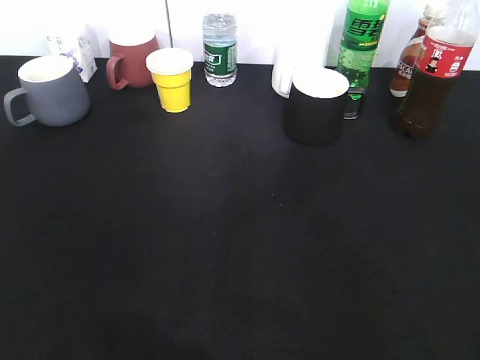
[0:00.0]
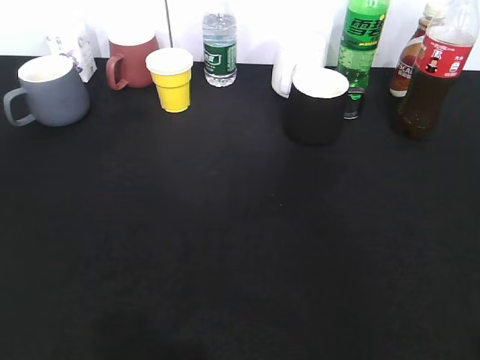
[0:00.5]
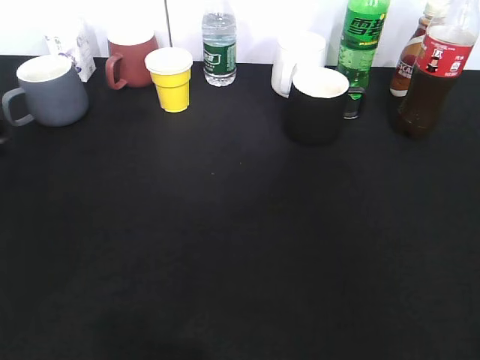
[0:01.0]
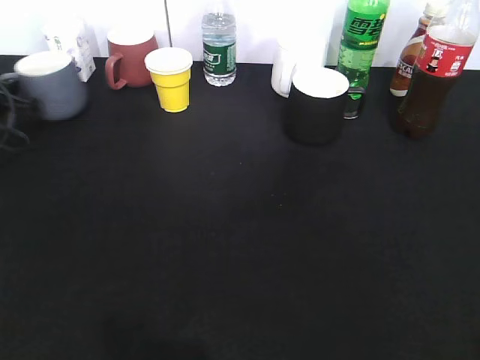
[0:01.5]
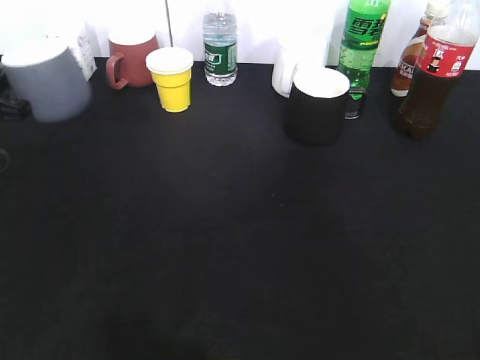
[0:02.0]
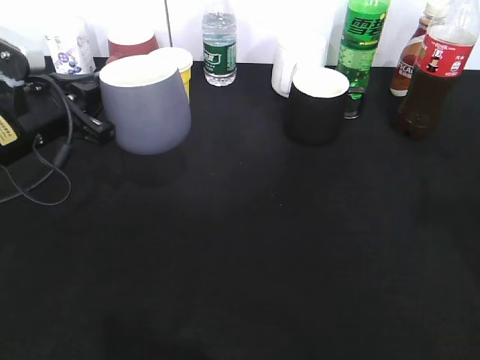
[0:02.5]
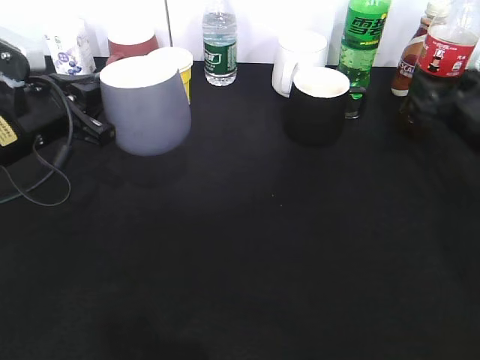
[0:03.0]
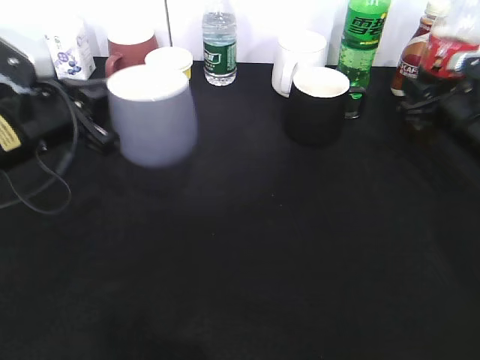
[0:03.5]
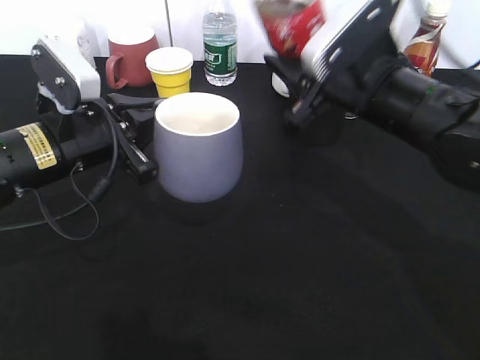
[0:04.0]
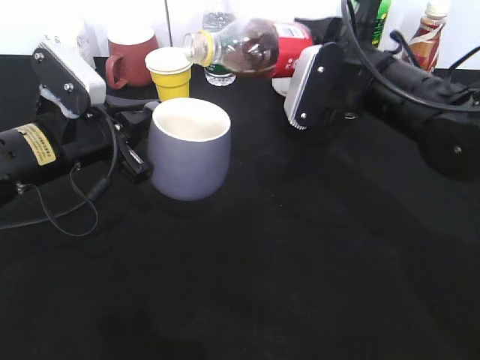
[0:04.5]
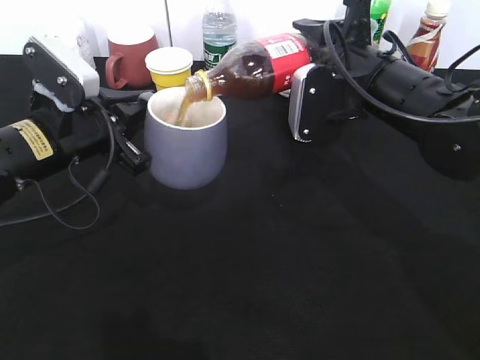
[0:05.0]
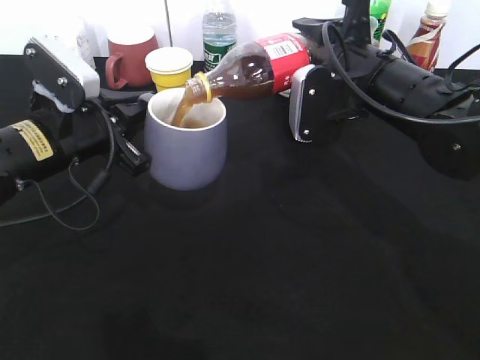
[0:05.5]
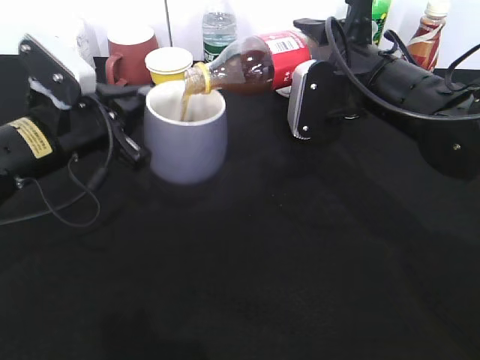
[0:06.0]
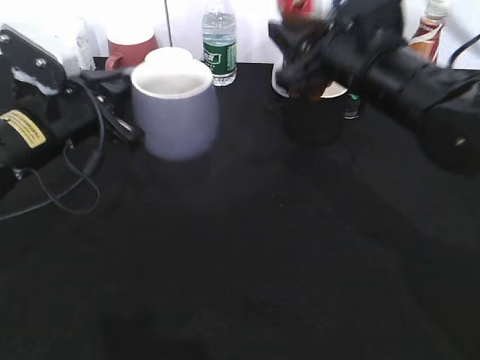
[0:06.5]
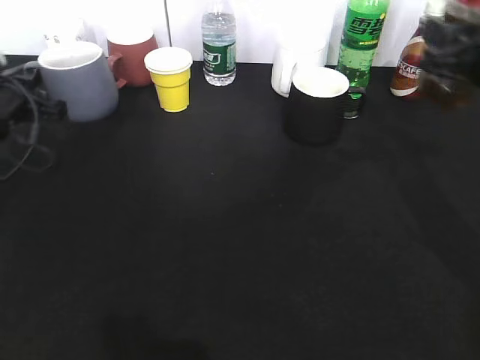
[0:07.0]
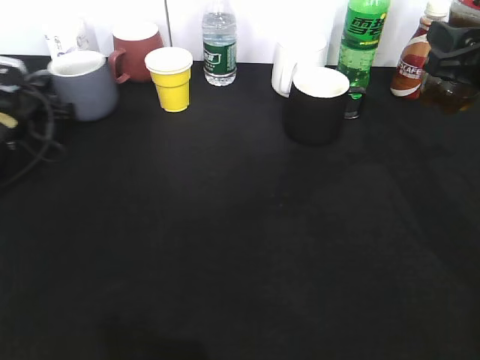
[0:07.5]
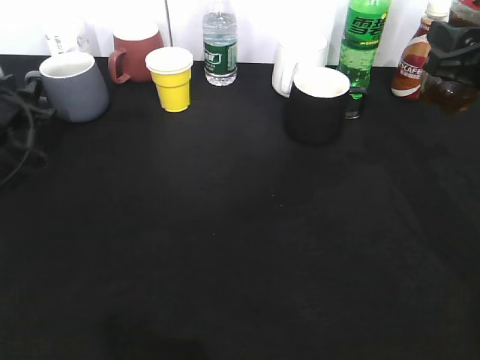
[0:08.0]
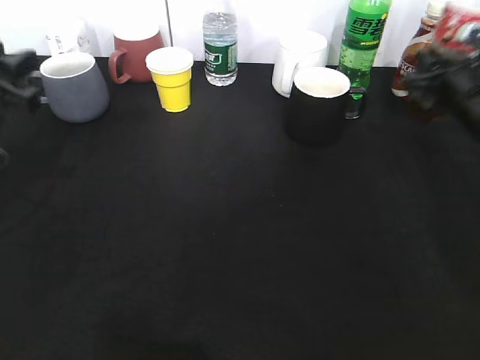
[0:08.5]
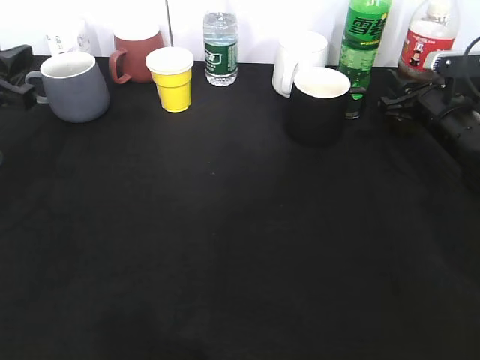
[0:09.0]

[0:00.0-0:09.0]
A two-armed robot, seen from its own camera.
Step, 0:00.0 to 0:01.5: Grasp the grey cup with left gripper.
Step, 0:02.5 to 0:03.0: Grasp the bottle with cola with right gripper.
Step, 0:03.5 to 0:05.5: Pour the cola from bottle to cup with right gripper.
Step, 0:06.0 to 0:08.0: Place the grey cup on the table with left gripper.
0:00.0 to 0:02.0: The left gripper shifts some 35 cm forward, and closes.
0:02.0 to 0:04.5: The right gripper travels forward and to the left by about 35 cm, and opens and closes again. Meanwhile the left gripper goes about 15 cm to the right.
0:04.5 to 0:07.0: The left gripper goes approximately 15 cm to the left and forward; the right gripper travels to the right by about 10 cm.
0:07.0 to 0:09.0: The right gripper shifts about 15 cm downward and forward. The left gripper heads backward and upward, covering about 15 cm, and opens up.

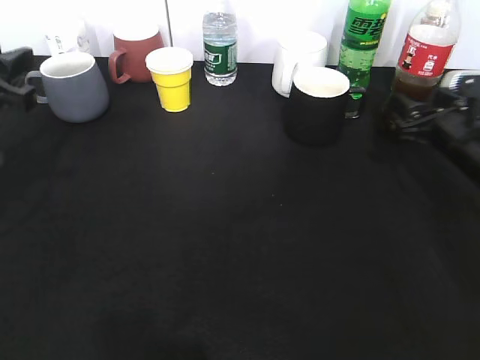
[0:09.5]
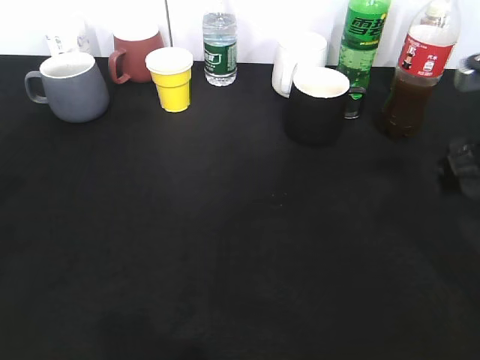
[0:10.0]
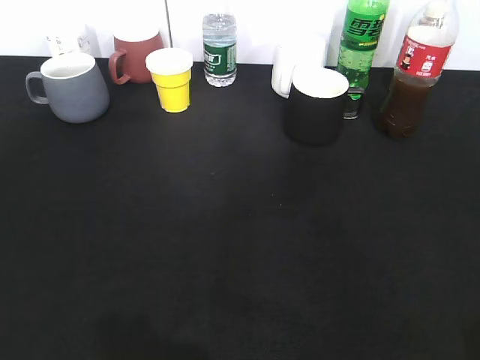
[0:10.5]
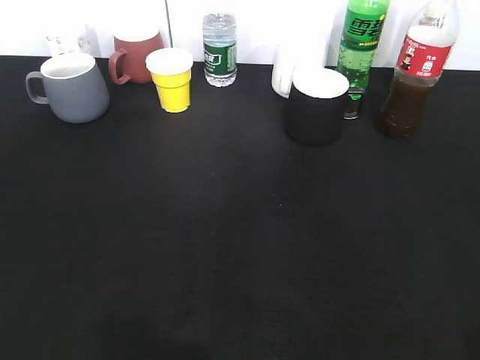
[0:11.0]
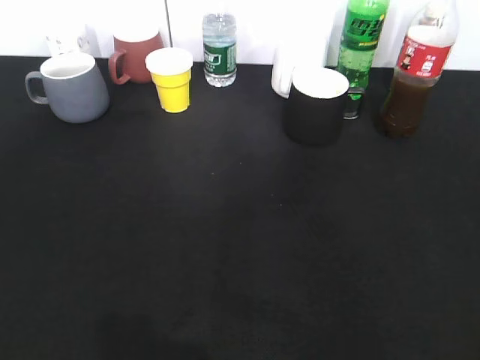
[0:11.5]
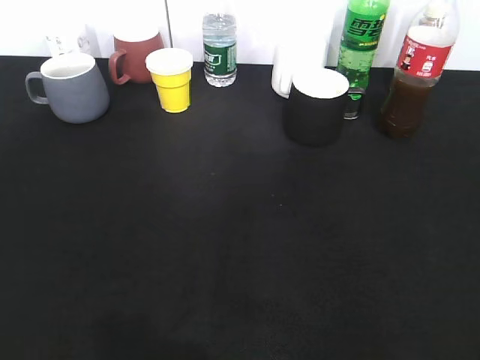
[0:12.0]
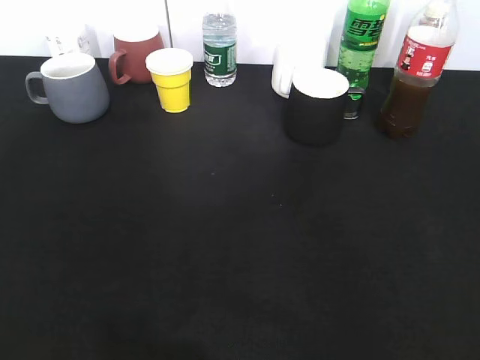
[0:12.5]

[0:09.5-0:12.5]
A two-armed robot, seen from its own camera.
0:09.5 to 0:11.0: The left gripper is displaced backward by approximately 25 cm. Meanwhile the right gripper travels backward and upward by some 35 cm.

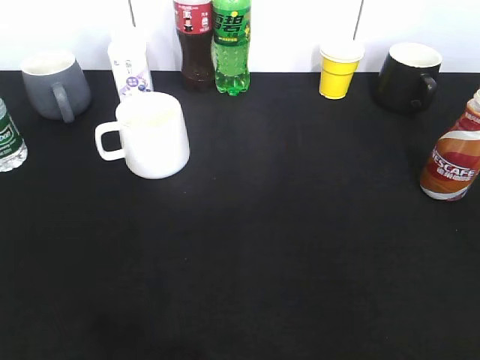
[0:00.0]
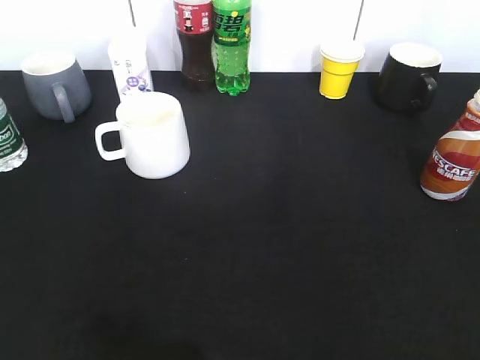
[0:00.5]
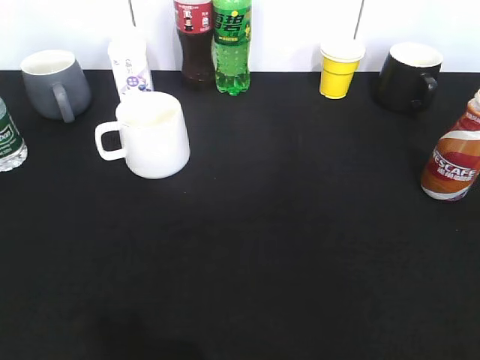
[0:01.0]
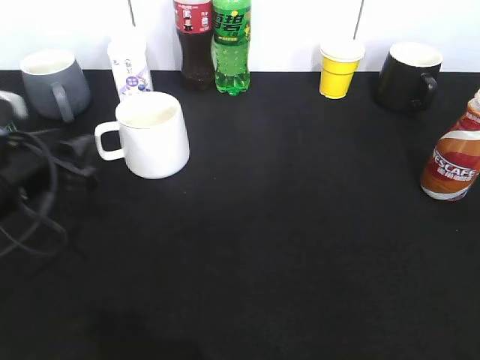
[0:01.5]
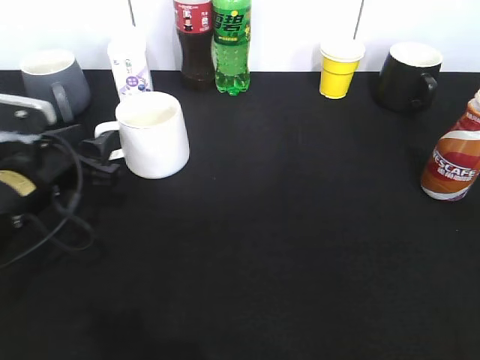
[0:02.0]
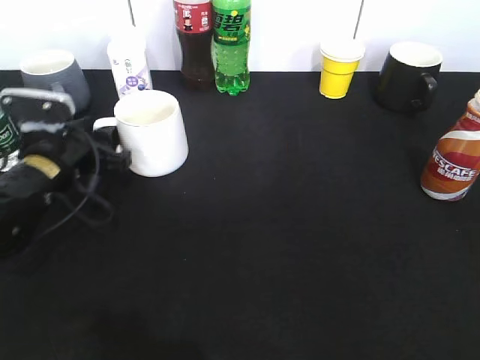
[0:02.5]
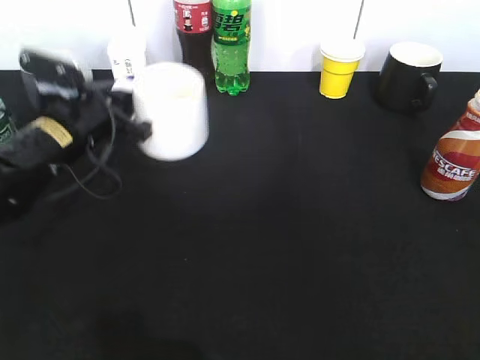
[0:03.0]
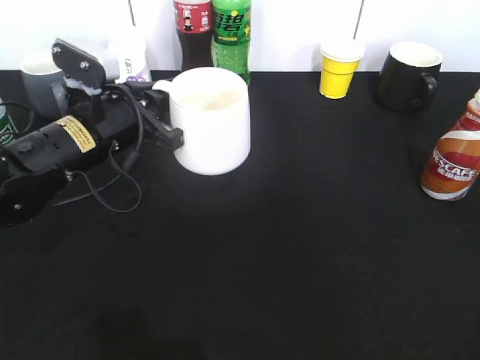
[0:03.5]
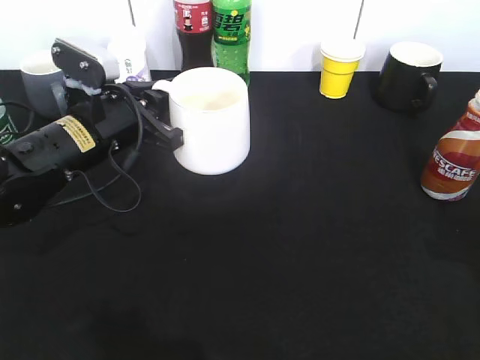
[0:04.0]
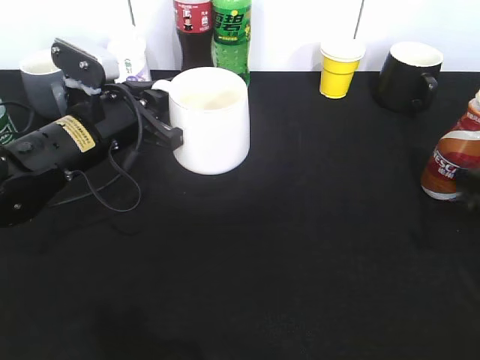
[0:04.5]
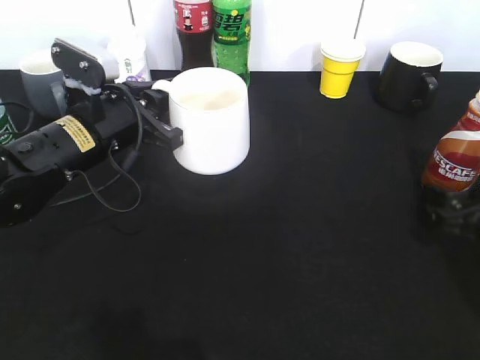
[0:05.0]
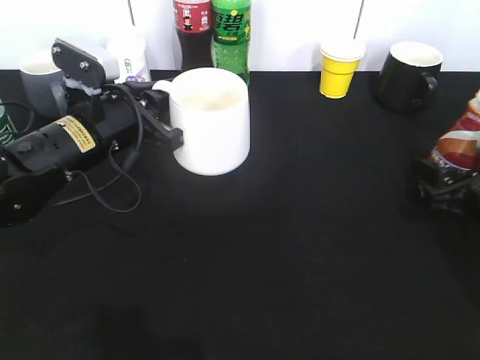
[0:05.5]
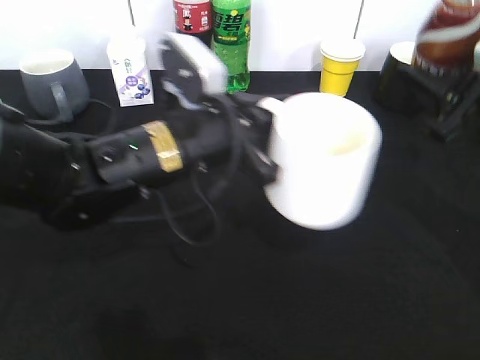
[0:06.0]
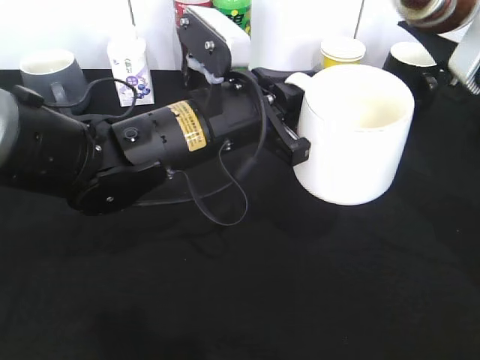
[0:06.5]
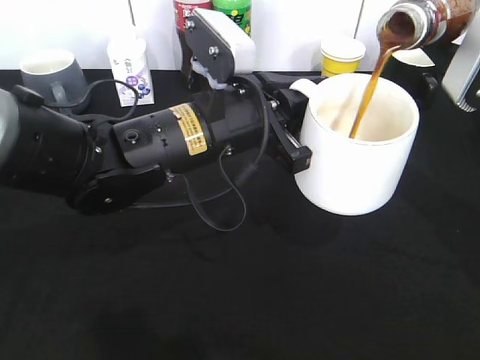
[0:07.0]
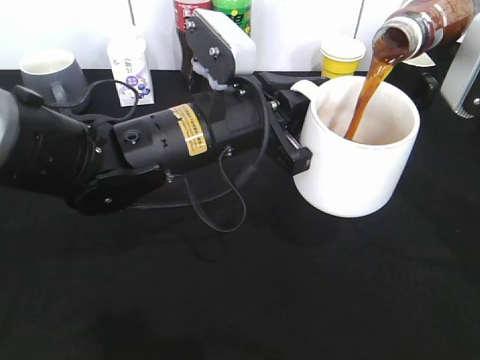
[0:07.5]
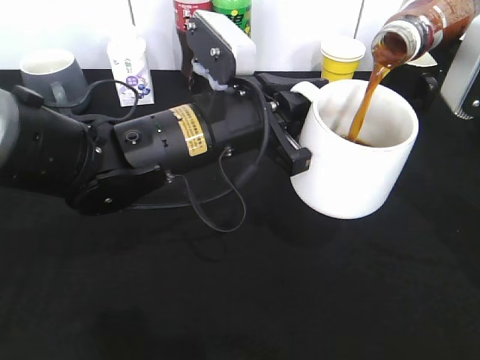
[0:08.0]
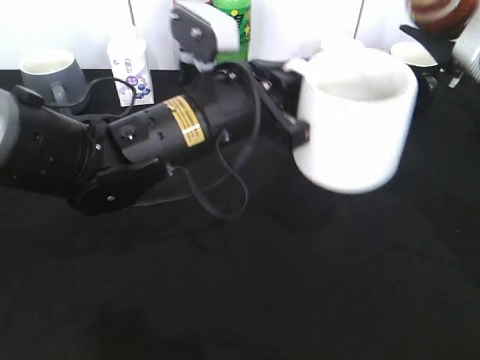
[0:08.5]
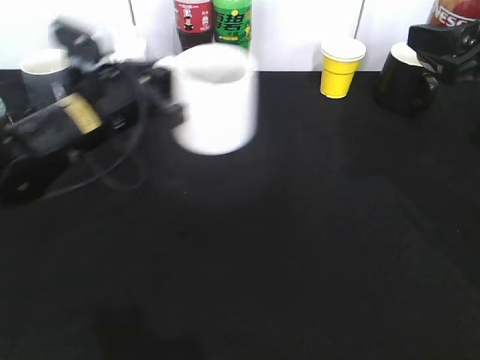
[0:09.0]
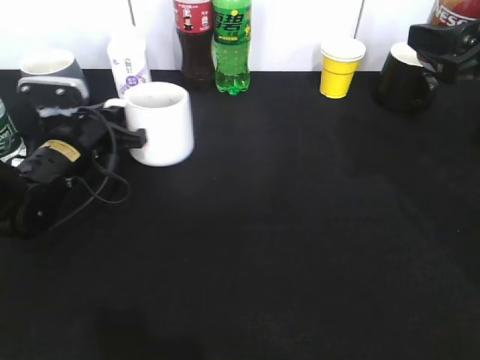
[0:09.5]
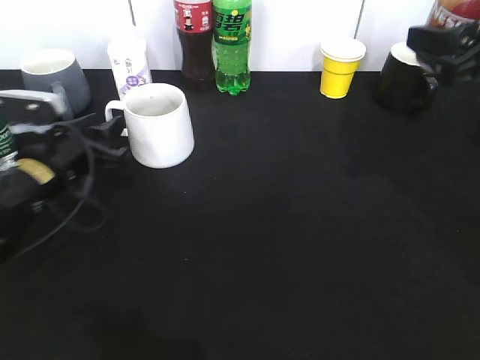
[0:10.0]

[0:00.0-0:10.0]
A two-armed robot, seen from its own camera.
Step, 0:00.0 to 0:02.5: Grasp the white cup with left gripper.
Step, 0:05.5 to 0:08.0: Pour the coffee from bottle to cup with right gripper.
Step, 0:09.0 to 0:10.0: Place the white cup on the table with left gripper.
0:00.0 to 0:02.0: The left gripper goes some 30 cm forward and downward.
0:02.0 to 0:04.0: The right gripper travels forward and downward by approximately 20 cm. Meanwhile the left gripper shifts approximately 5 cm to the right, and closes its fingers.
0:04.0 to 0:06.0: The right gripper shifts some 10 cm forward and to the left, travels downward and back again, about 10 cm each way, and opens, then closes once more; the left gripper shifts roughly 10 cm to the right.
0:08.0 to 0:10.0: The left gripper is displaced to the left and downward by about 20 cm, and opens its fingers.

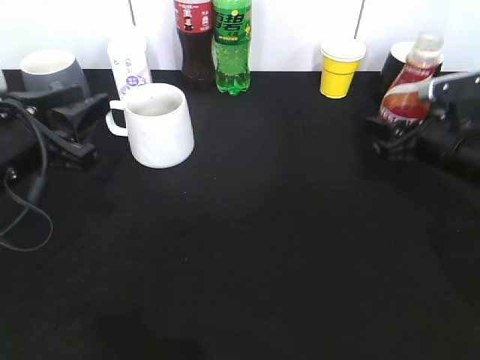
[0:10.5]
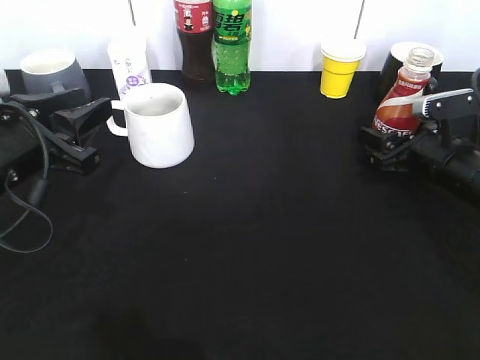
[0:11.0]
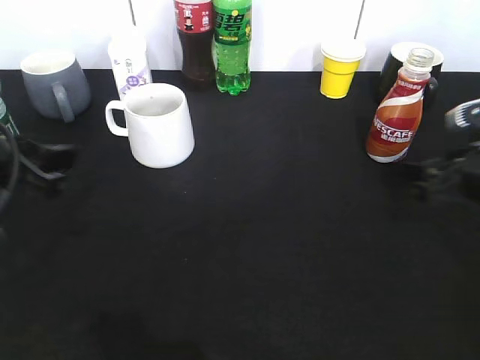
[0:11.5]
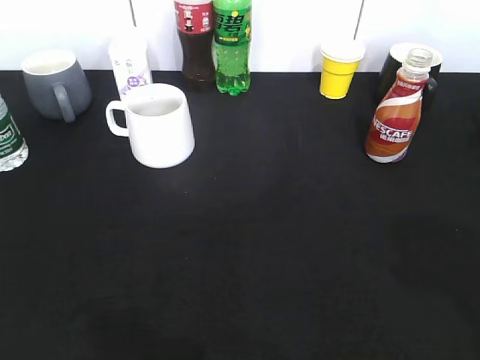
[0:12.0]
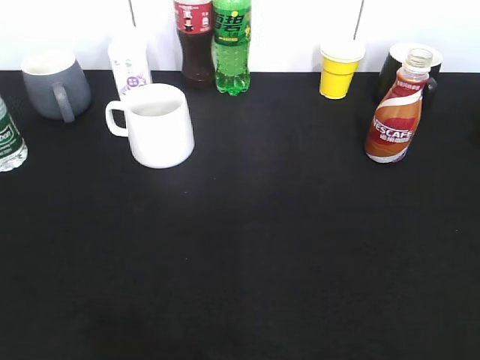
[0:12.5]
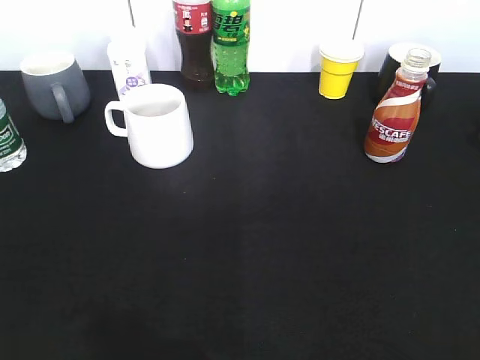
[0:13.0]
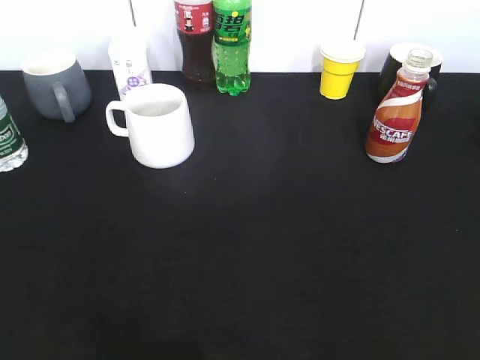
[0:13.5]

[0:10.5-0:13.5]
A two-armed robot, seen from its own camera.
0:10.5 to 0:12.0: The left gripper goes approximately 25 cm backward, upward and to the left; the right gripper heads backward and upward, covering approximately 30 cm, and opens.
